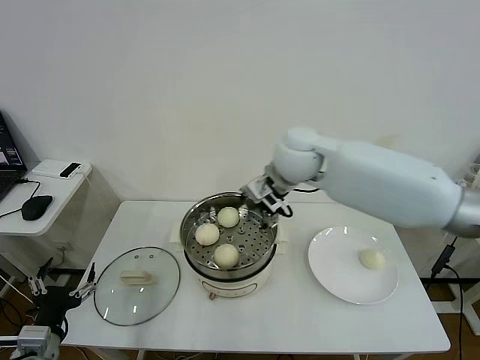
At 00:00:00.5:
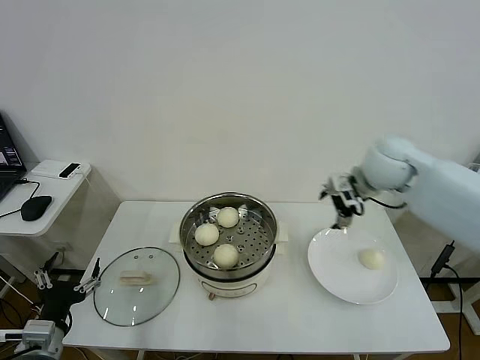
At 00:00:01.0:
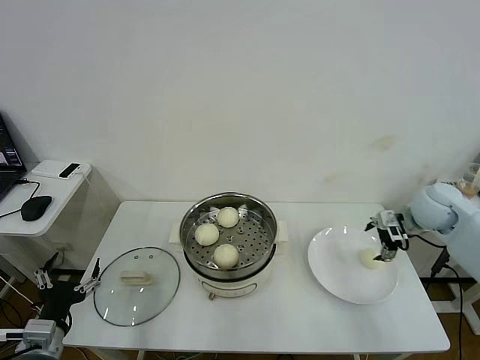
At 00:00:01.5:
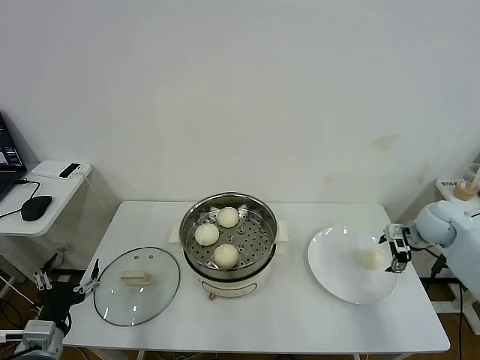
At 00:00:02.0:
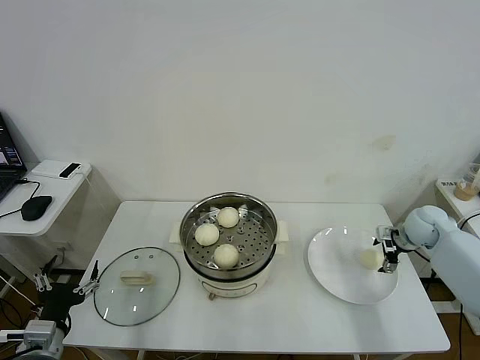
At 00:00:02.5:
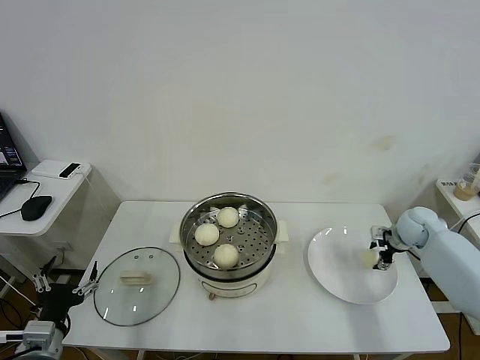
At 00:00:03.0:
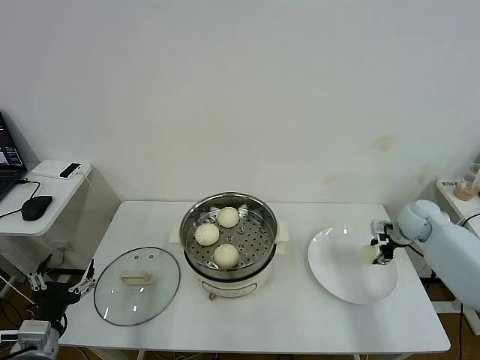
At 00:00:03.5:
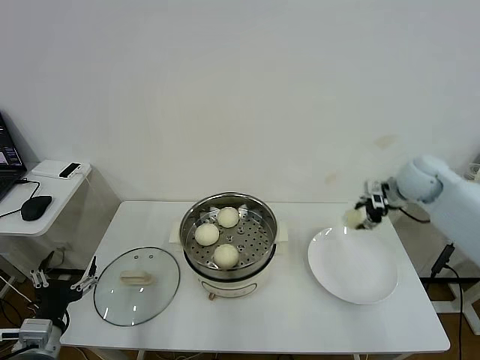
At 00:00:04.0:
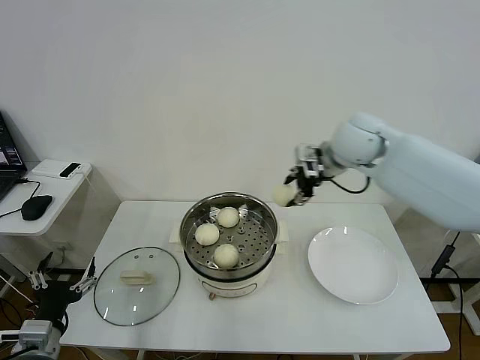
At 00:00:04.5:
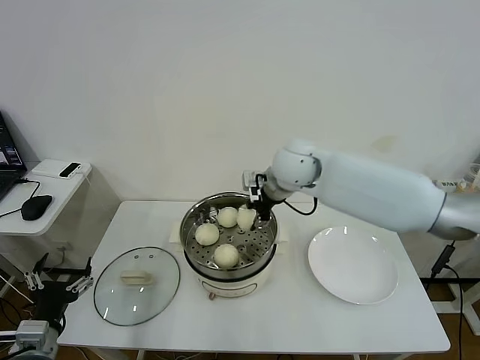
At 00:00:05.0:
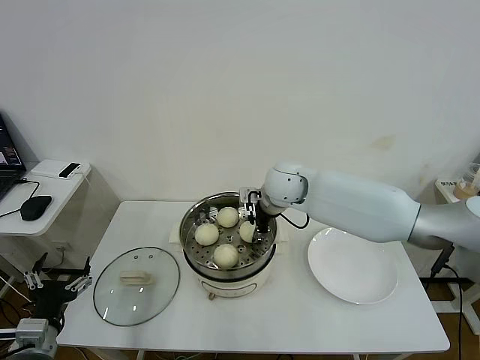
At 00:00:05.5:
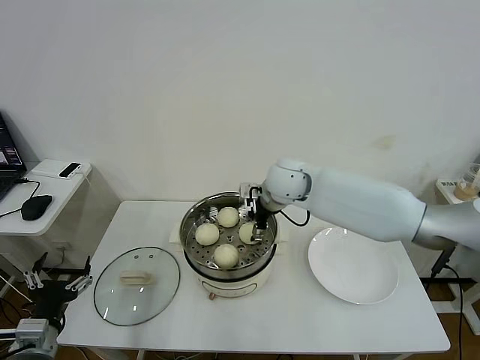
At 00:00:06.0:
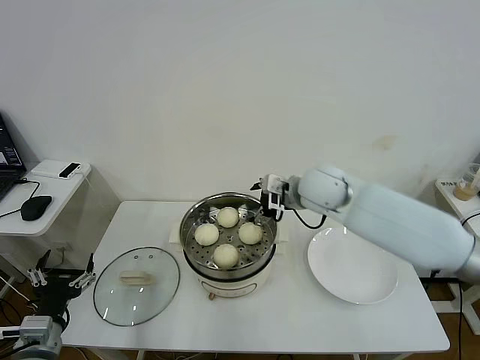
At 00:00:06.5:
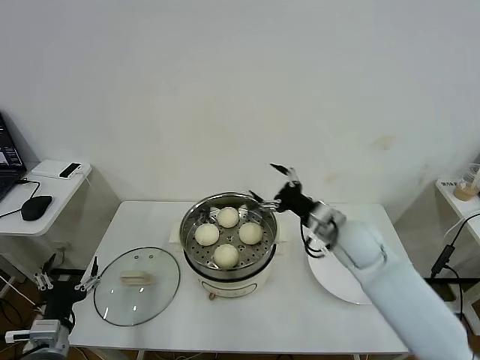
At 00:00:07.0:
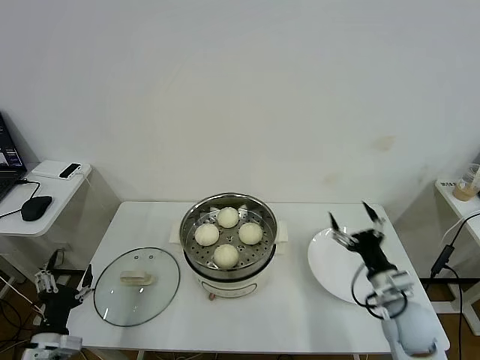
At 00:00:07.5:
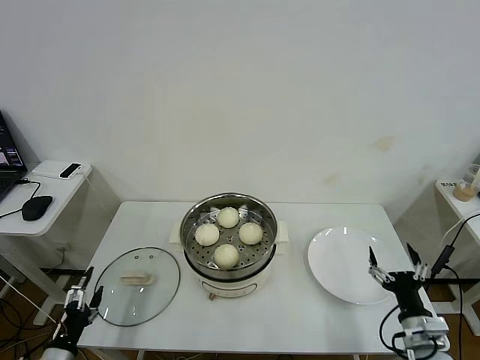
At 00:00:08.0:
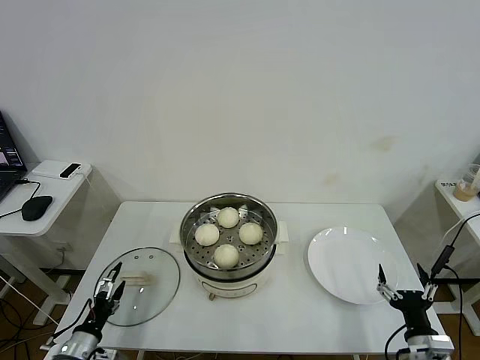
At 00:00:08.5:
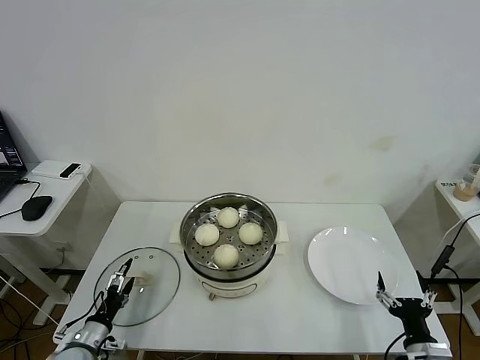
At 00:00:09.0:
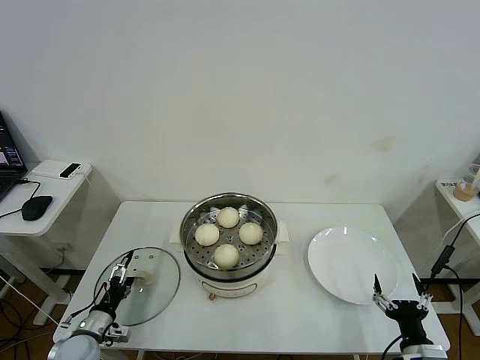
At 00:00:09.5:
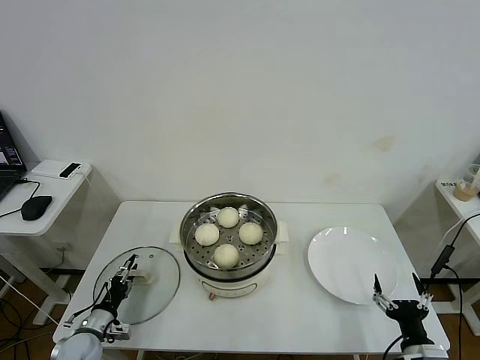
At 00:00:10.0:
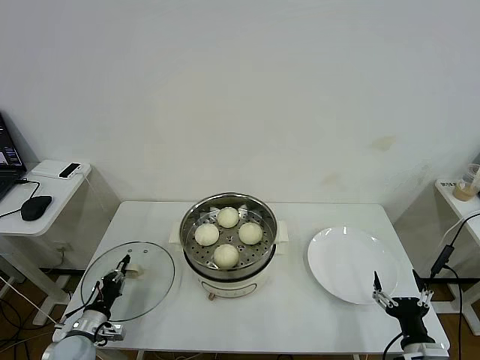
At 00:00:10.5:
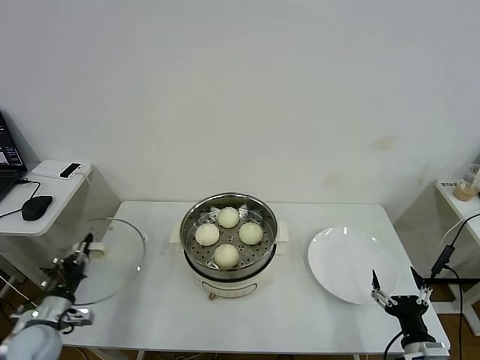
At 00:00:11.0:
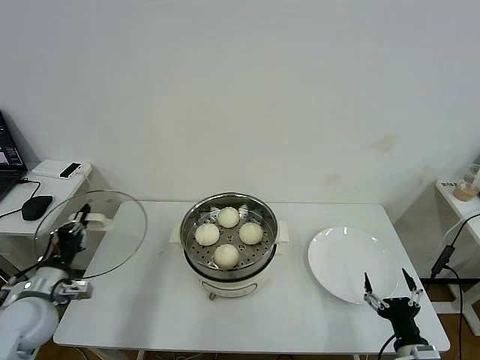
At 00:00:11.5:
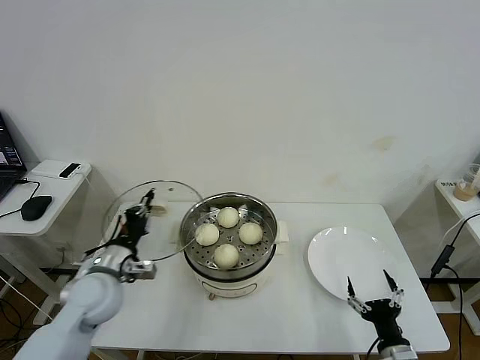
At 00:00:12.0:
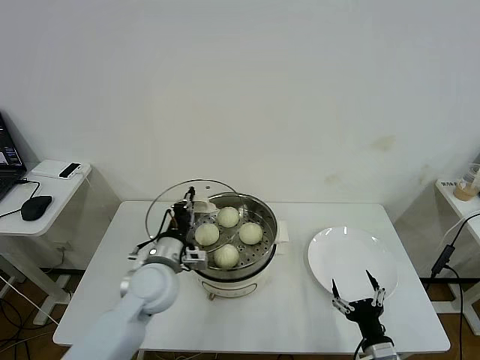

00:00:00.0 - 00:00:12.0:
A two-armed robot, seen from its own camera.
Task of the whole recording: take steamed baozi put them in steamer then cover it.
Step, 00:00:00.0 - 00:00:02.5: Grasp the baozi in the plate with right gripper.
Step, 00:00:03.0 - 00:00:05.5: Place the baozi on the steamer with right gripper.
Step, 00:00:06.0 - 00:00:10.0: Grasp the pot lid with left gripper.
00:00:00.0 - 00:00:02.0: The right gripper is displaced to the right and downward by some 40 cm.
00:00:02.0 - 00:00:04.0: The right gripper heads to the left and upward, covering some 35 cm, and closes up.
00:00:04.0 - 00:00:06.0: The right gripper travels downward by about 10 cm, and opens.
00:00:06.0 - 00:00:08.0: The left gripper is displaced downward by about 15 cm. The right gripper moves backward, downward and to the right, some 50 cm.
00:00:08.0 - 00:00:10.0: The left gripper heads forward, covering some 5 cm, and closes.
00:00:10.0 - 00:00:12.0: The right gripper heads to the left, covering about 5 cm. The left gripper shifts about 30 cm to the right and upward.

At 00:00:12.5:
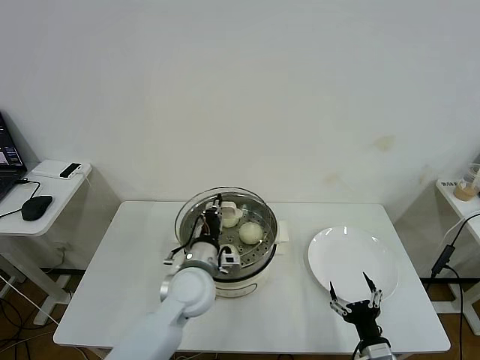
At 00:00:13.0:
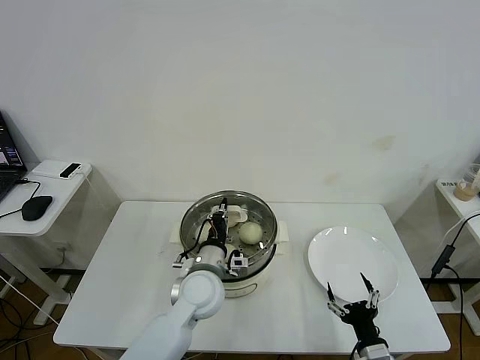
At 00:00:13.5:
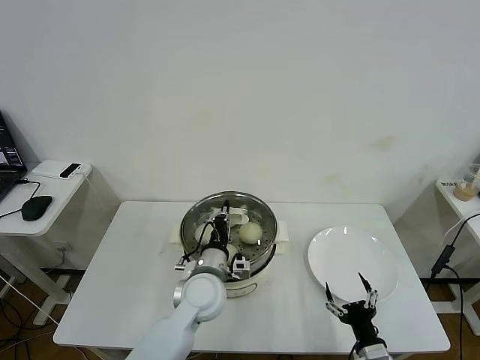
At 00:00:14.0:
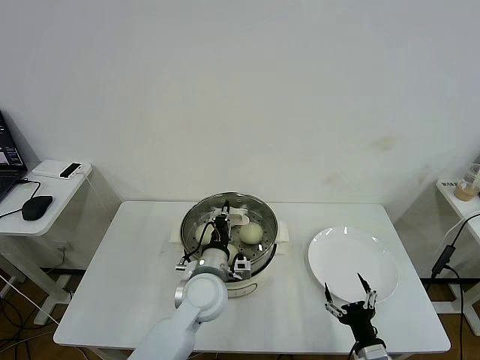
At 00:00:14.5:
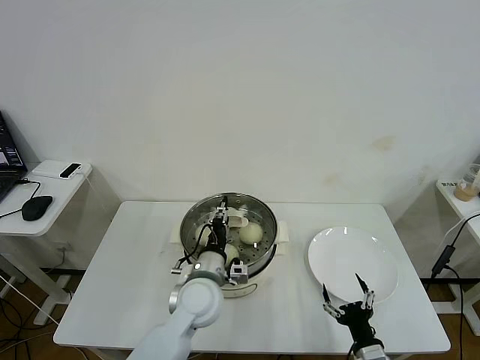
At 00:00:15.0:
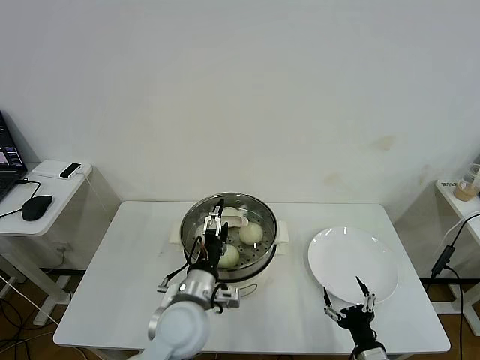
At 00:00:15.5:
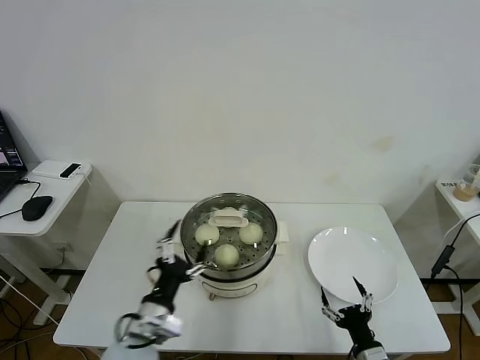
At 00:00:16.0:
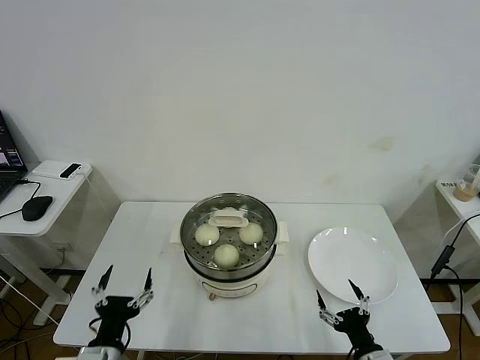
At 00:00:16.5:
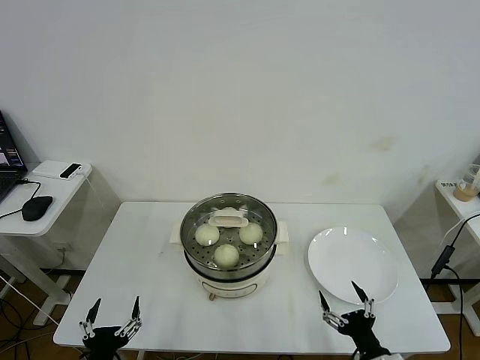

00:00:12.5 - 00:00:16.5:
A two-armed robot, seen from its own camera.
Task of the whole recording: take steamed baozi put them in steamer then cover it.
Step, 00:00:12.5 - 00:00:14.5: Place the pot lid on the steamer with left gripper.
00:00:12.5 - 00:00:14.5: The left gripper opens up.
00:00:14.5 - 00:00:16.5: The left gripper travels backward and to the left by about 30 cm, and opens up.
